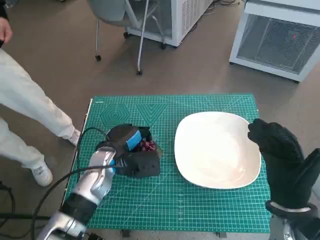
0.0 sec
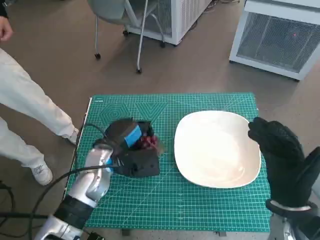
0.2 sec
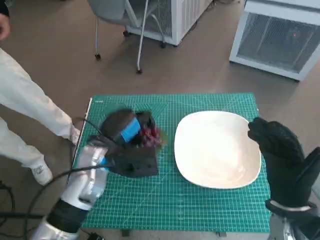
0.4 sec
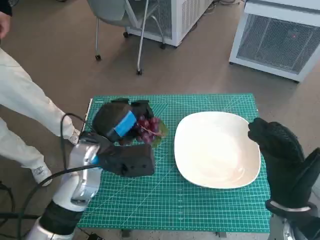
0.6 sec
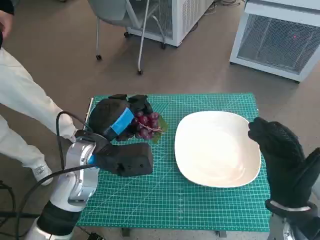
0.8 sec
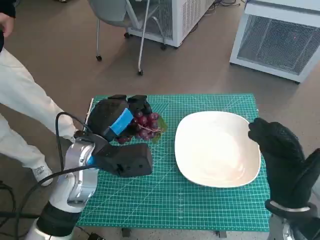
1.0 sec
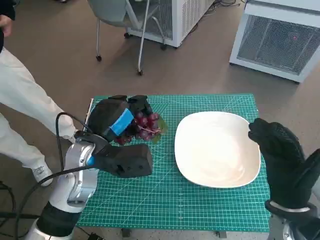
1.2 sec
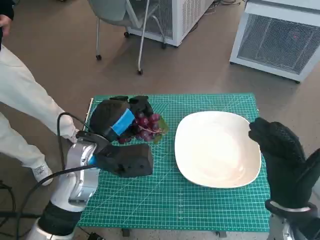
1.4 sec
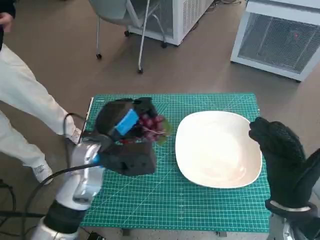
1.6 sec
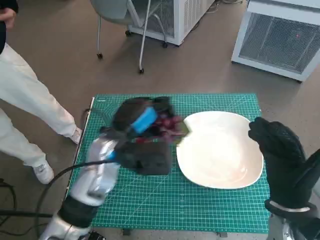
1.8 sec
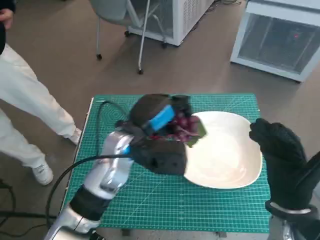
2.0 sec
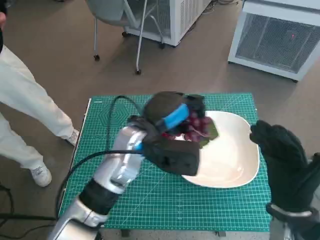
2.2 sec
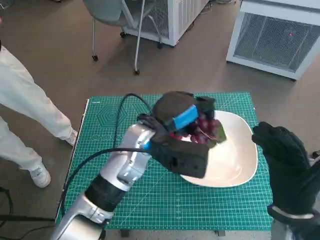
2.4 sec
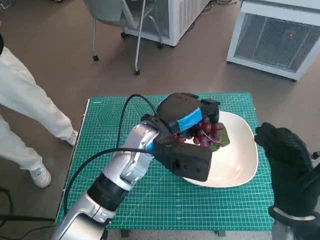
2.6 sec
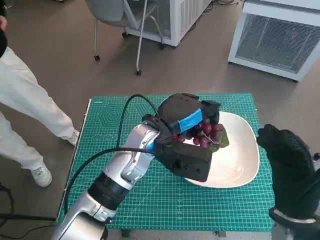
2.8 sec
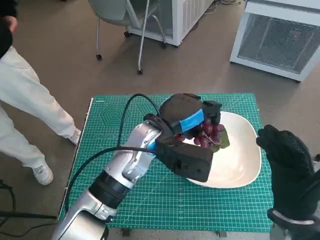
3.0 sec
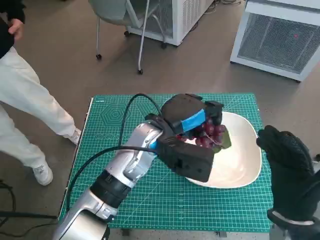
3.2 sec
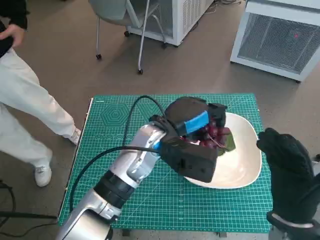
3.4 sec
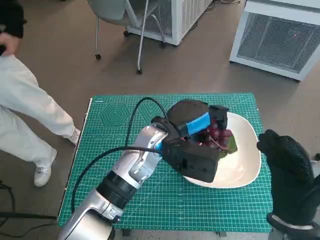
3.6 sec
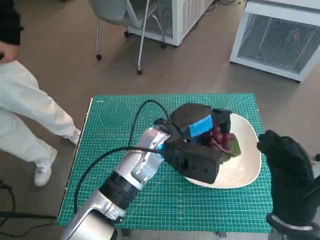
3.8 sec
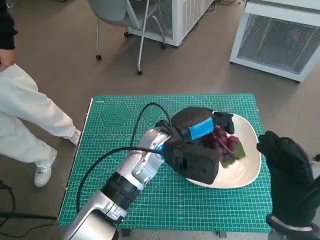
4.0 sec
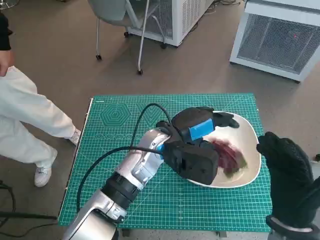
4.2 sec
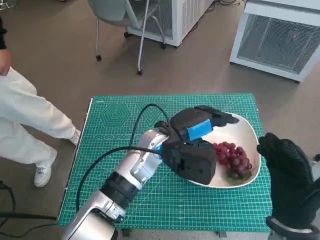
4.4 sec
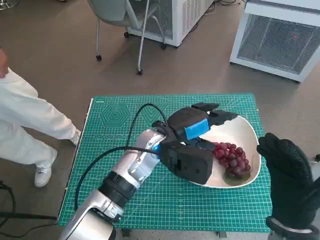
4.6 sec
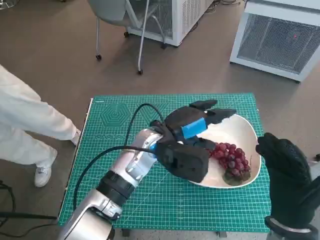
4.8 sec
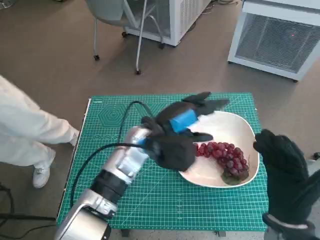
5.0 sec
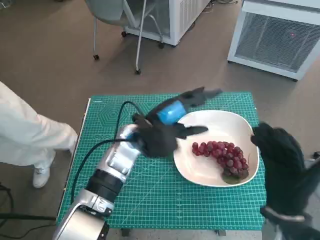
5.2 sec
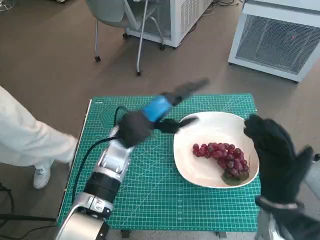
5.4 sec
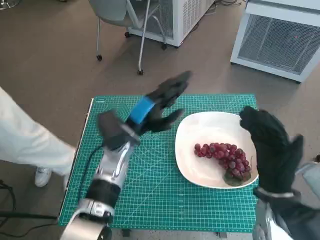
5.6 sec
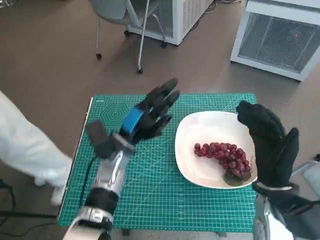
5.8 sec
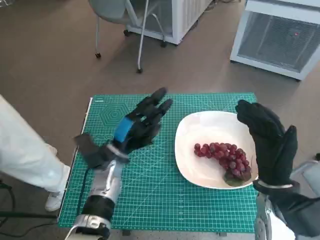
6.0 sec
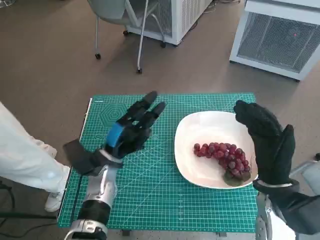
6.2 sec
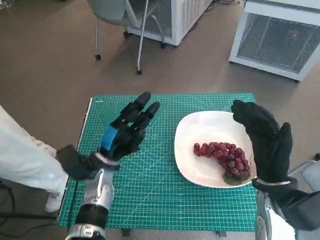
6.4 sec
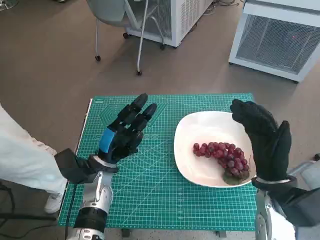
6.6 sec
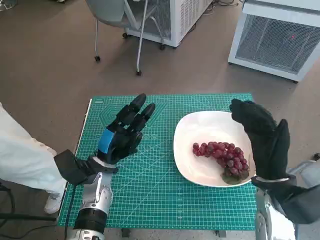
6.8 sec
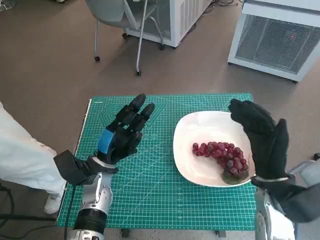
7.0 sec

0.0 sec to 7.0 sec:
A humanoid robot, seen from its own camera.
Task of the whole recording: Pick up the grapes and put them on the plate.
Step, 0.0 sec to 4.6 sec: Place the grapes in the plate with left hand.
0.0 sec to 1.4 sec: The left hand shifts about 10 cm upward.
1.4 sec to 2.8 sec: The left hand travels to the right by approximately 10 cm.
4.2 sec to 5.6 sec: The left hand is displaced to the left by approximately 10 cm.
5.6 sec to 7.0 sec: The left hand is displaced downward and to the left by approximately 10 cm.

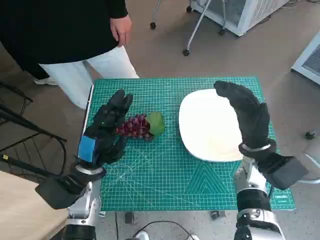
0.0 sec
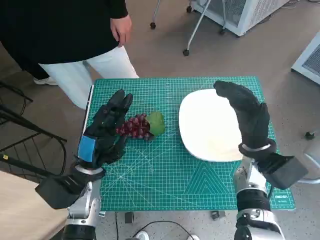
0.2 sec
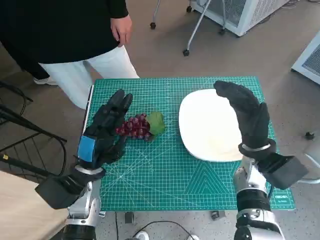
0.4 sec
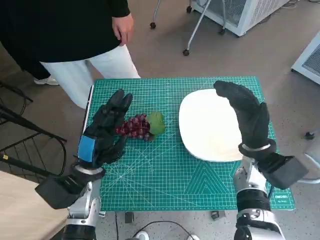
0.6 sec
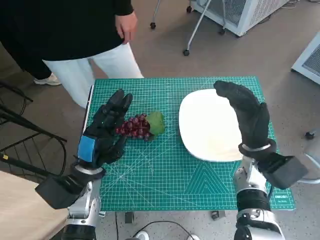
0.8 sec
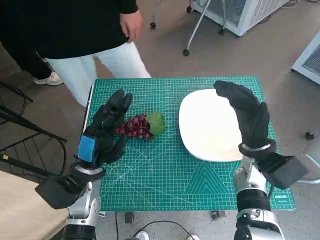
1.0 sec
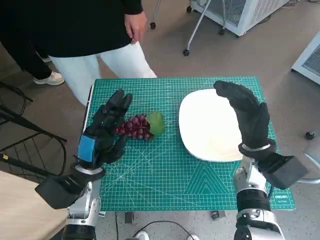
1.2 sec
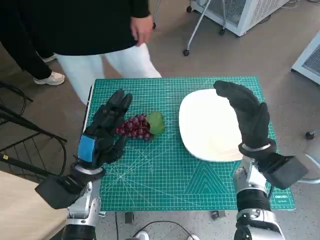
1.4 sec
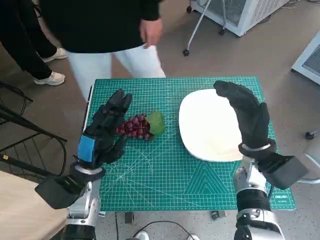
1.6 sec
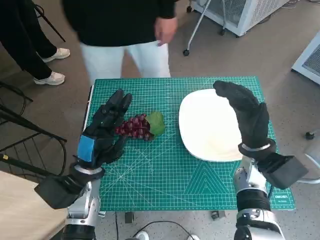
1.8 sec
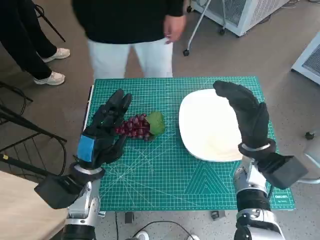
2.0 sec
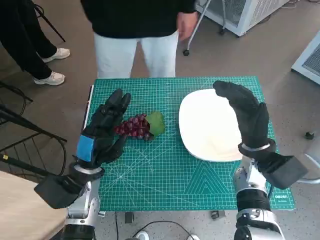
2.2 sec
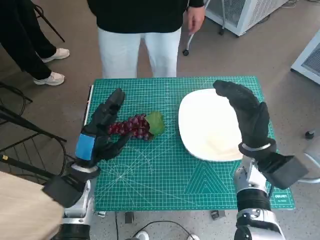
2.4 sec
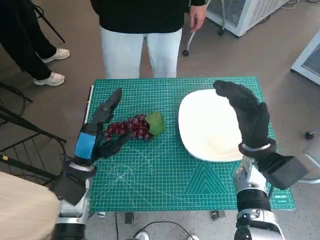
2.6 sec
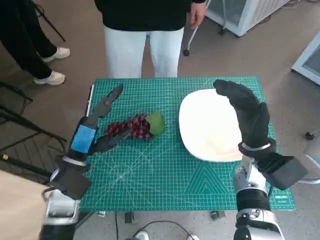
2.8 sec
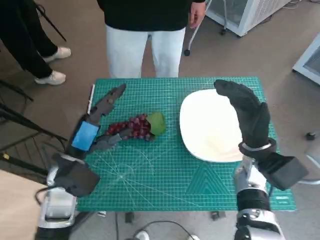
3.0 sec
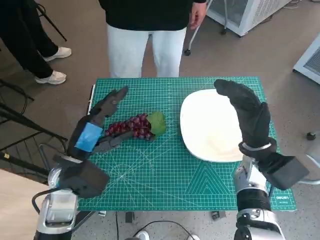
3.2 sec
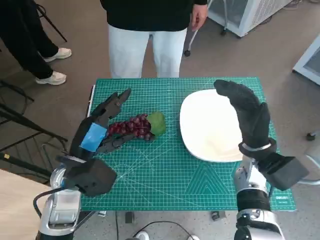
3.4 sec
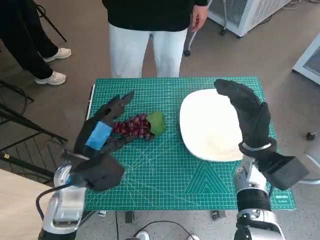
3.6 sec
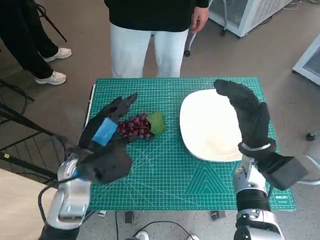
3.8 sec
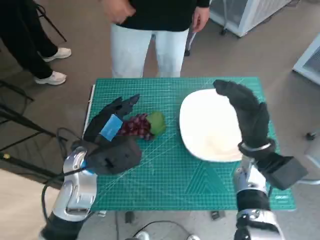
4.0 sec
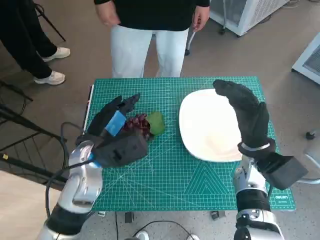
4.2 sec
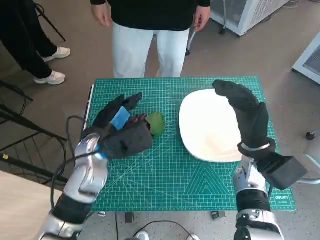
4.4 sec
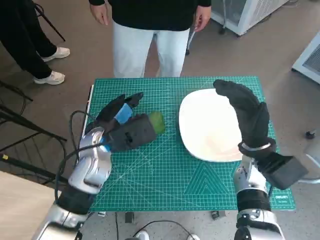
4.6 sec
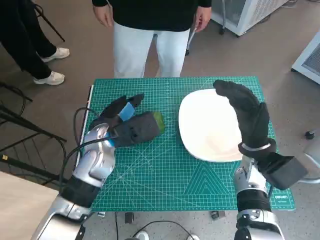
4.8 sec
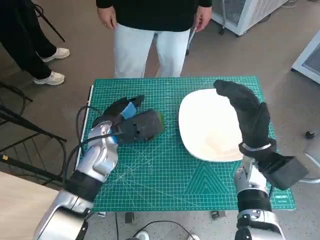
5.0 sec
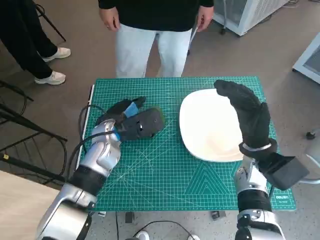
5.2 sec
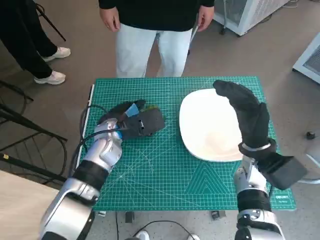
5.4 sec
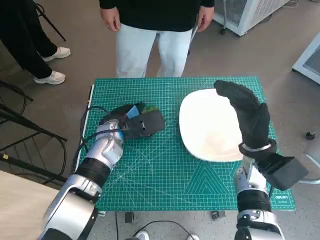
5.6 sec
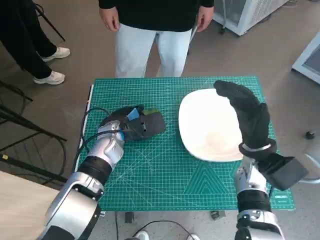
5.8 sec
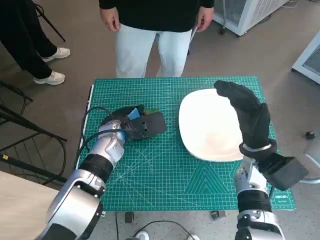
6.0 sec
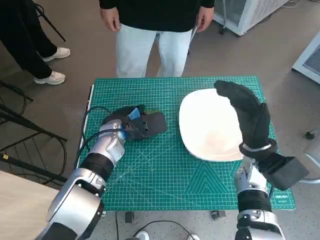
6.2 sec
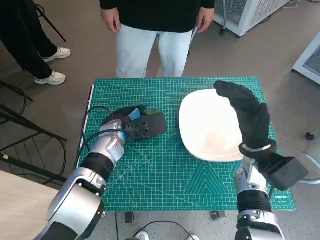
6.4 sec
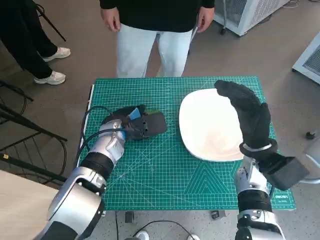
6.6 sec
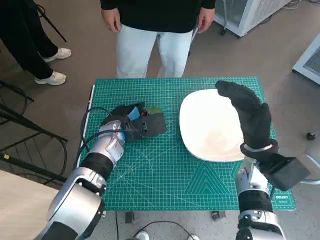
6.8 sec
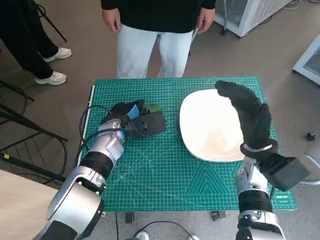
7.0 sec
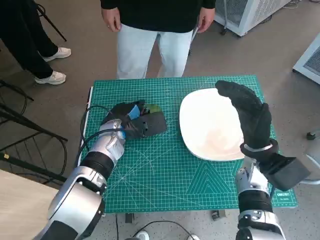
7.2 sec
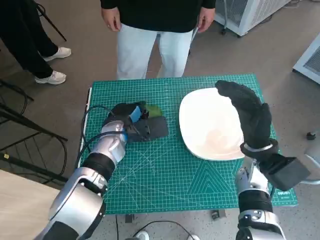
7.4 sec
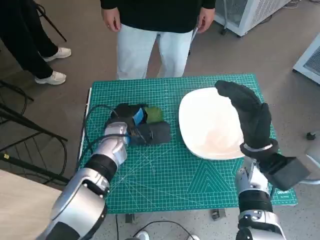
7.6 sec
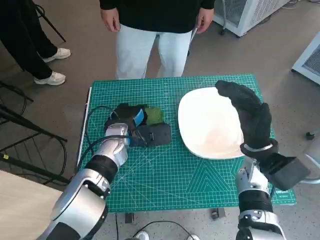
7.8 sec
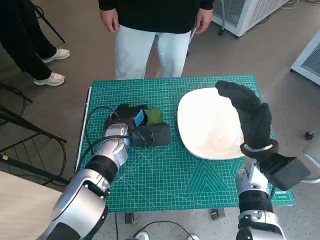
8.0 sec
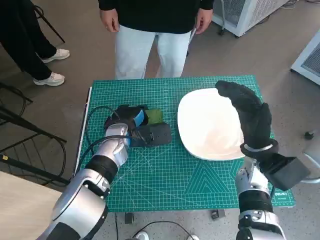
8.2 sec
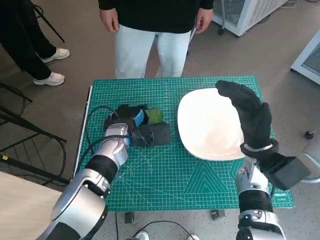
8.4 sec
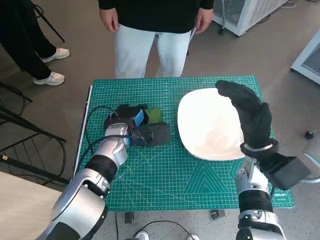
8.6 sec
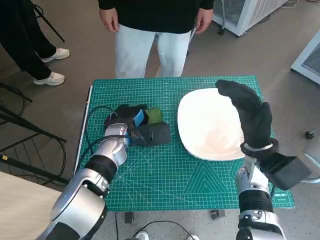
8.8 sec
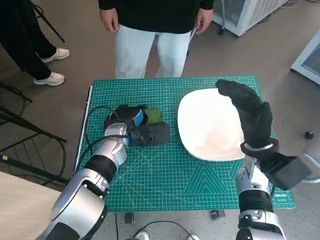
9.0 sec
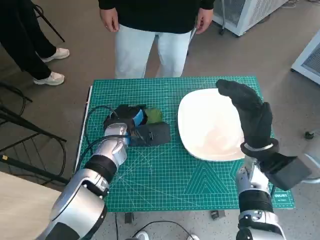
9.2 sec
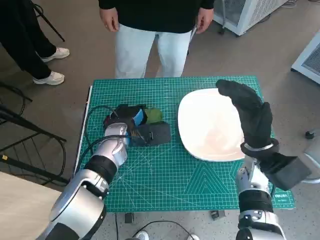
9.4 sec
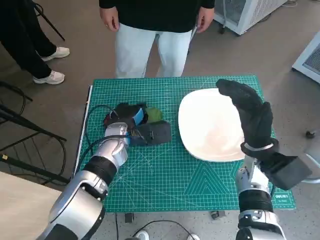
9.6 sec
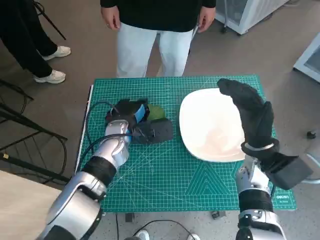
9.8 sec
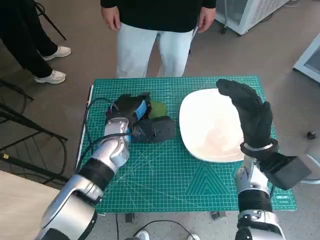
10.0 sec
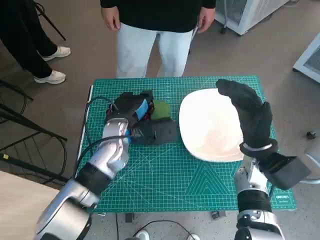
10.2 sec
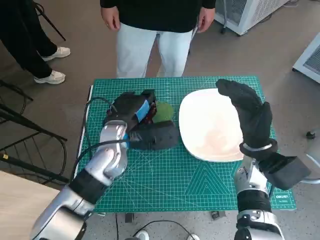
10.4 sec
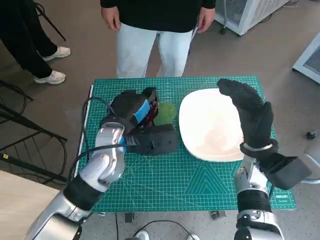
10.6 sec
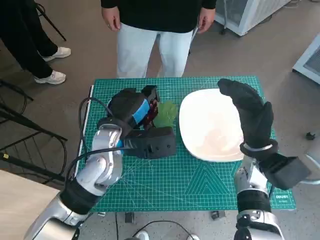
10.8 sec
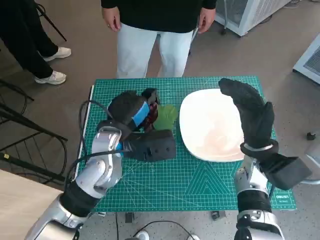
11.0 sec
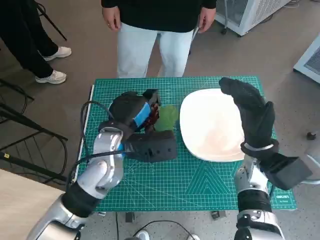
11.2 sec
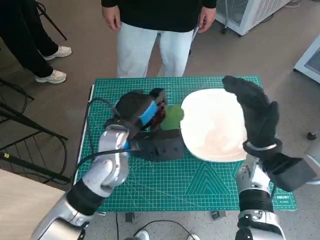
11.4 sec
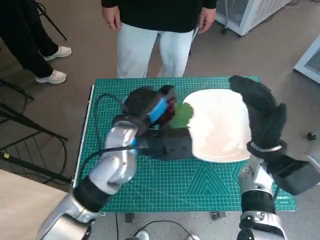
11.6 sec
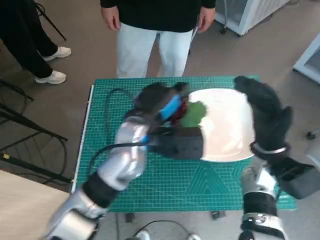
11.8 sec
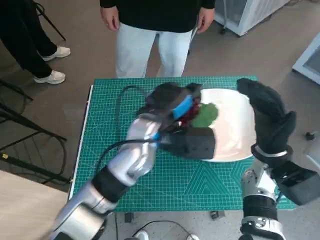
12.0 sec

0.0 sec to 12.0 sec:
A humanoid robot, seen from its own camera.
Task of the whole recording: Pick up the grapes and put them on the plate.
Step, 0.0 sec to 9.2 sec: Grasp the grapes with left hand.
3.0 sec to 4.4 sec: The left hand moves roughly 5 cm.
4.4 sec to 6.0 sec: The left hand heads forward, covering approximately 5 cm.
6.0 sec to 7.6 sec: The hands stay close to where they were, moving slightly.
7.6 sec to 9.0 sec: Both hands stay put.
9.0 sec to 10.4 sec: The left hand heads upward, covering some 5 cm.
10.4 sec to 12.0 sec: The left hand is displaced to the right by approximately 5 cm.

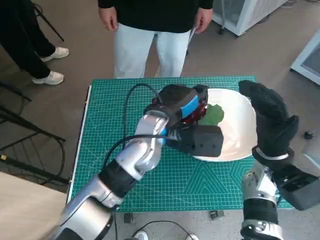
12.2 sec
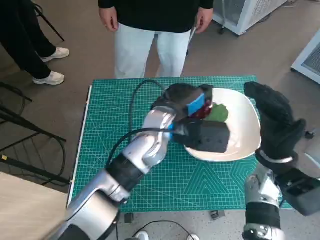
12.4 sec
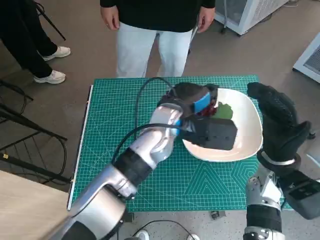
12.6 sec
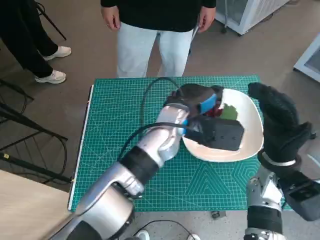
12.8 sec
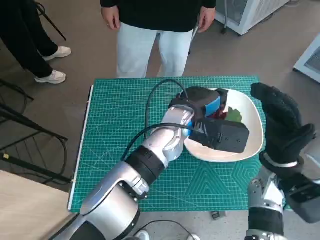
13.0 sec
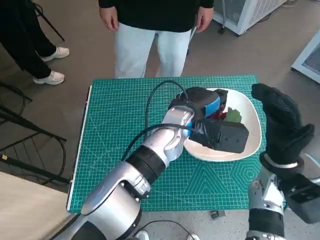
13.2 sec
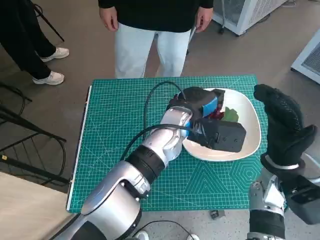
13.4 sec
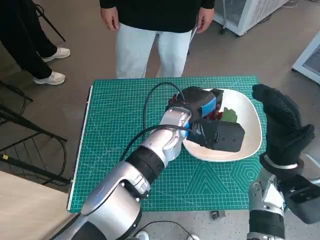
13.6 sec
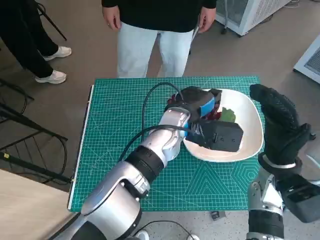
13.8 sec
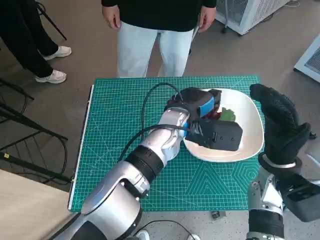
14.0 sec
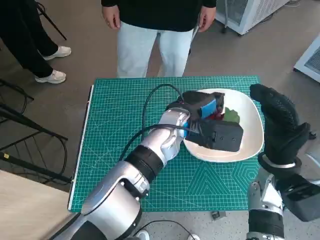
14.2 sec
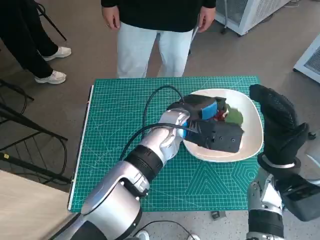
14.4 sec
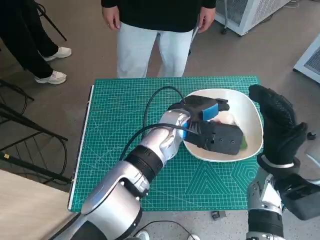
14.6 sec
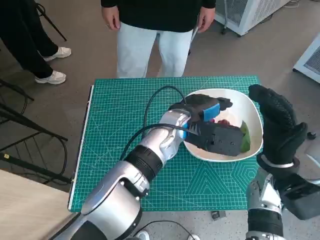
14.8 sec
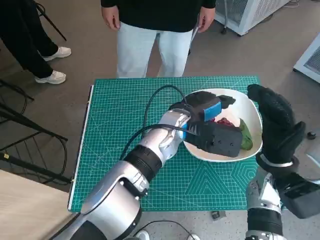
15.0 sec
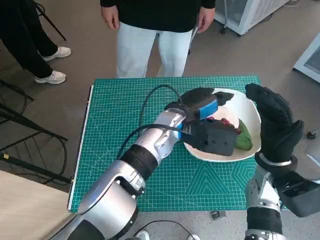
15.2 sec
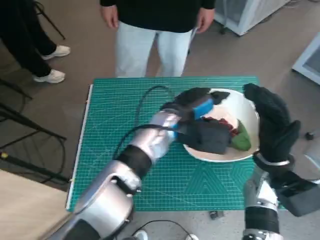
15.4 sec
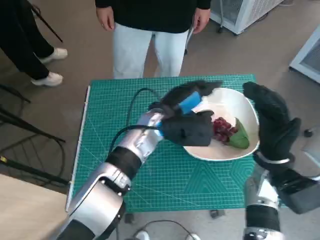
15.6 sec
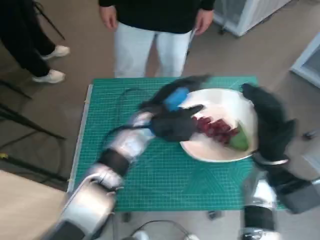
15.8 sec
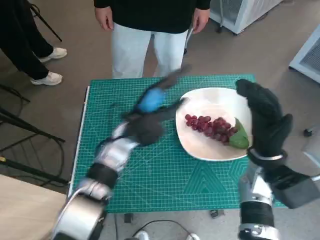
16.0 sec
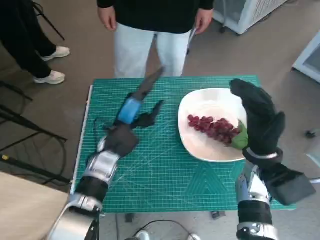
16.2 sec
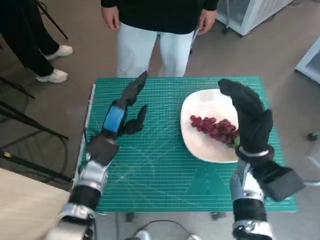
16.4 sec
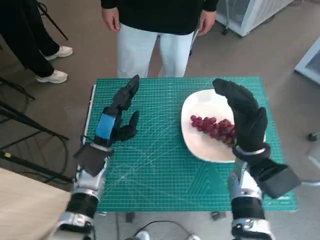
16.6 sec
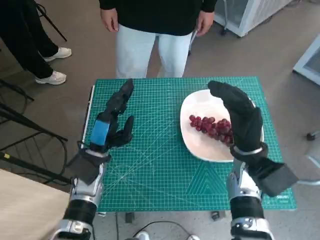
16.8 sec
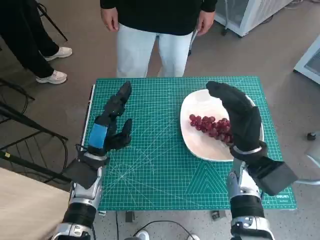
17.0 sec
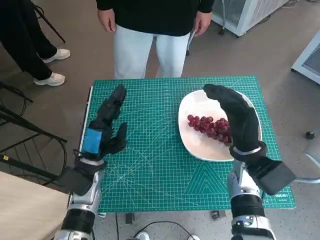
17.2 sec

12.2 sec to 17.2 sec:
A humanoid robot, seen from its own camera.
Task of the whole recording: Pick up the grapes and put them on the plate.
Step, 12.2 sec to 15.4 sec: Place the grapes in the plate with left hand.
12.2 sec to 13.8 sec: The left hand shifts by about 5 cm.
15.6 sec to 17.2 sec: The left hand moves to the left, backward and downward, some 20 cm.
